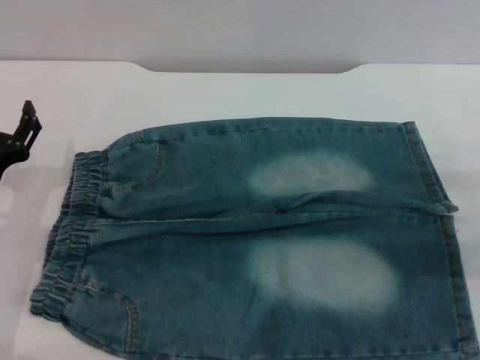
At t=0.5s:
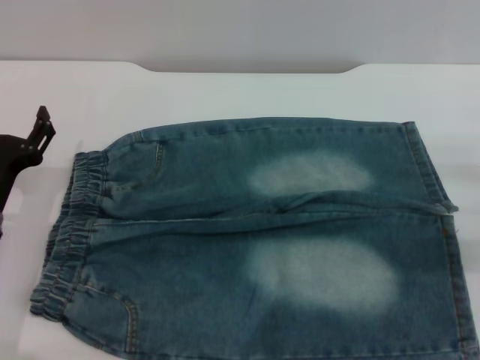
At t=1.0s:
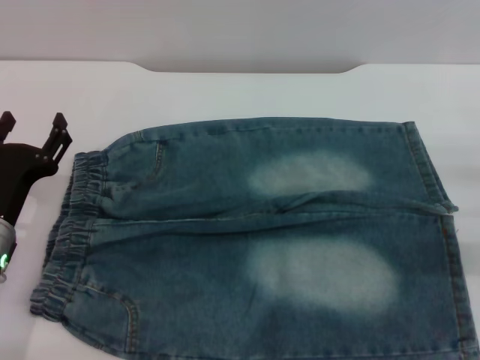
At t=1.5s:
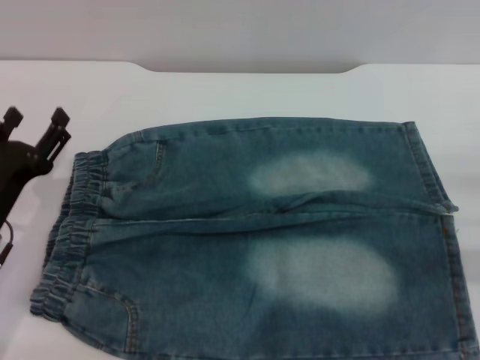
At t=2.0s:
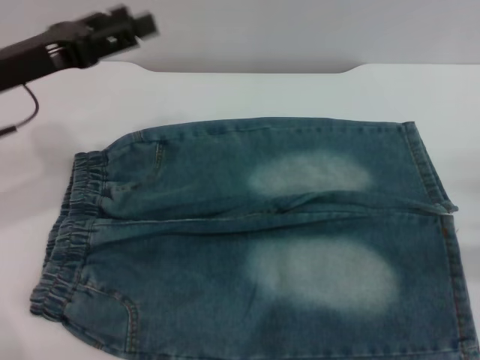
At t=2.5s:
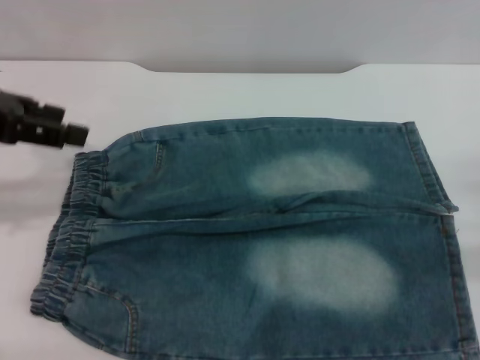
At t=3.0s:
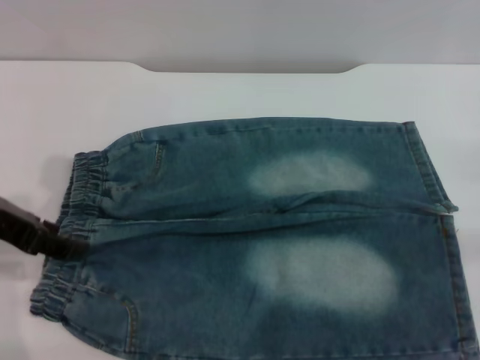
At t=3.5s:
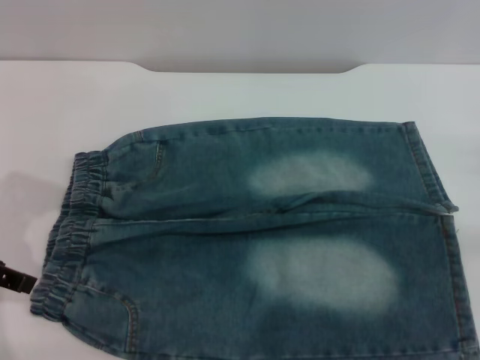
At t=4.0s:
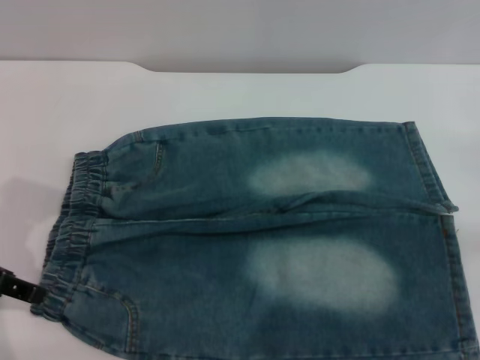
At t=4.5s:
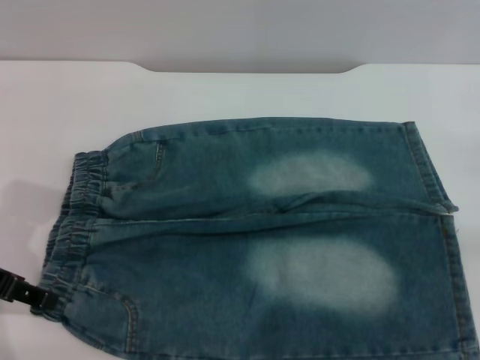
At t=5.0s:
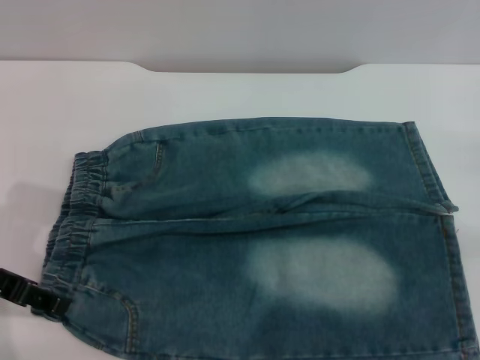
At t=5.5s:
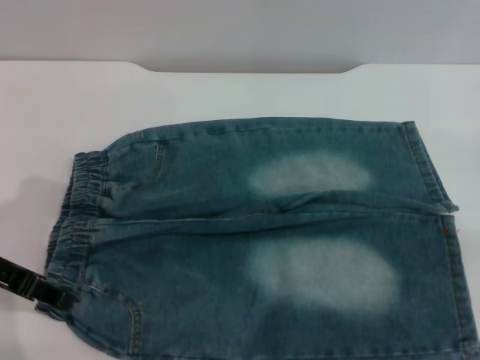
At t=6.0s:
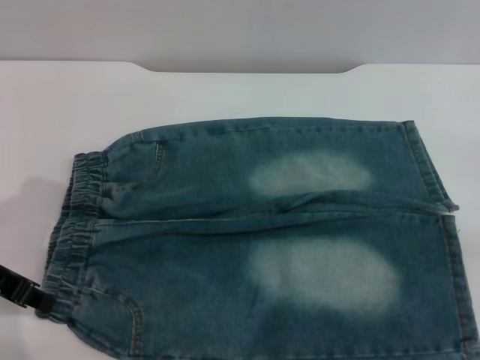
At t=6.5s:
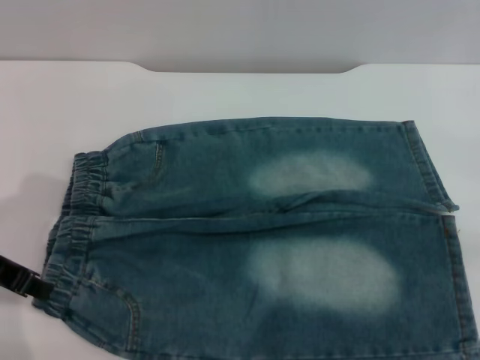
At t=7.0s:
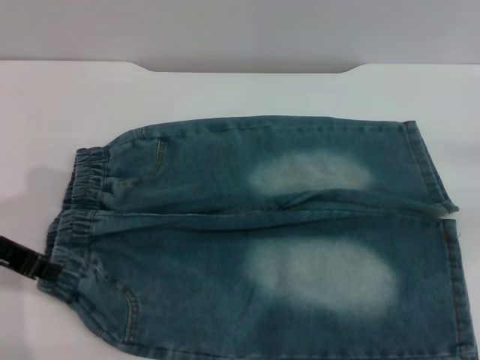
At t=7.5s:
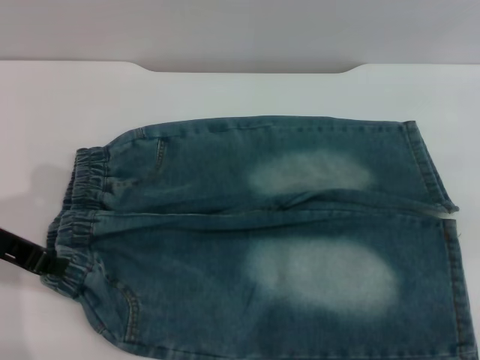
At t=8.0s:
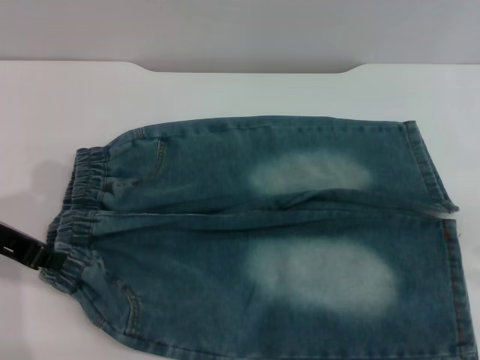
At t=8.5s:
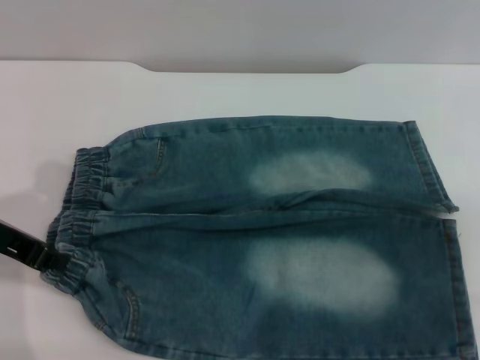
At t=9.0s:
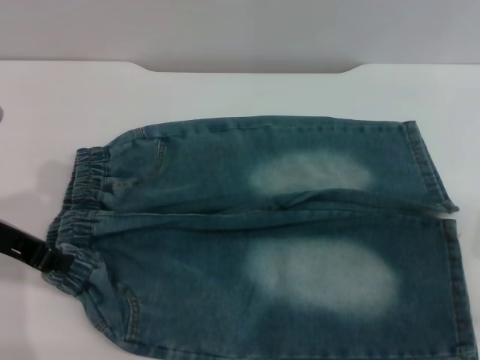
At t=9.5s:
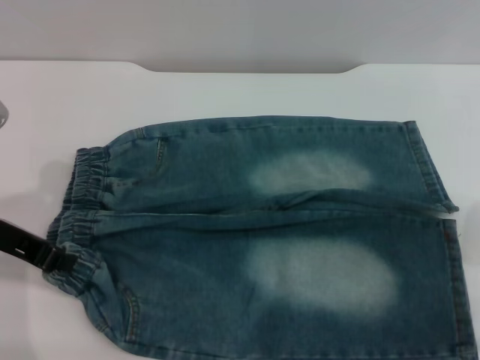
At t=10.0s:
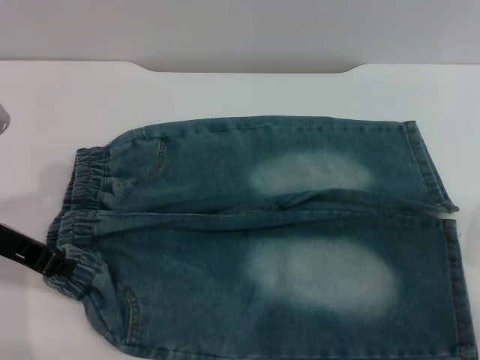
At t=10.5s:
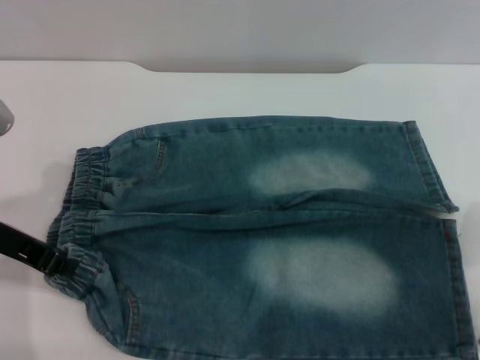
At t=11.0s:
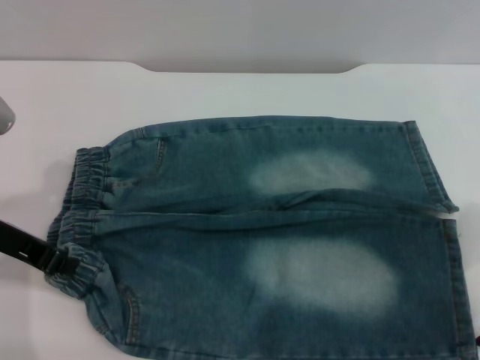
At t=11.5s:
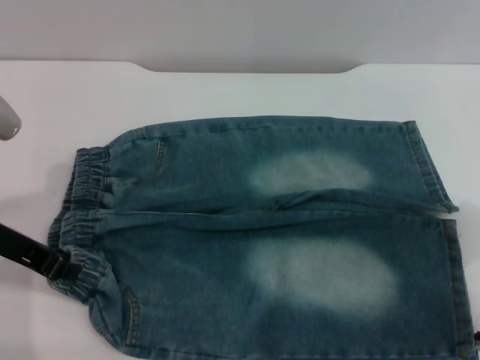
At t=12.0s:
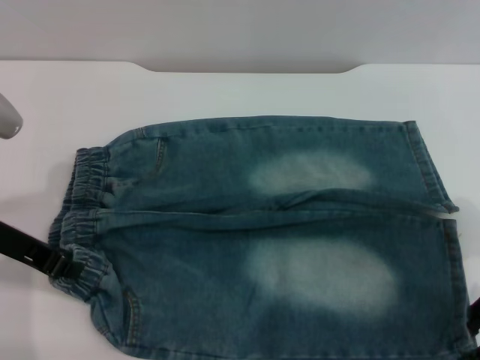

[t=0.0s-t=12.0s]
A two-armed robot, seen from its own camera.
t=0.0s to t=2.0s: The left gripper heads upward and forward, covering roughly 15 cm.
t=2.0s to t=4.0s: The left gripper travels backward by roughly 10 cm, and moves about 10 cm upward and comes back.
t=4.0s to t=6.0s: The grippers stay close to where they were, moving slightly.
t=6.0s to t=8.0s: The left gripper closes its fingers, while the right gripper heads upward and to the left, covering approximately 20 cm.
t=10.0s to t=12.0s: There are only small adjustments of the grippers.

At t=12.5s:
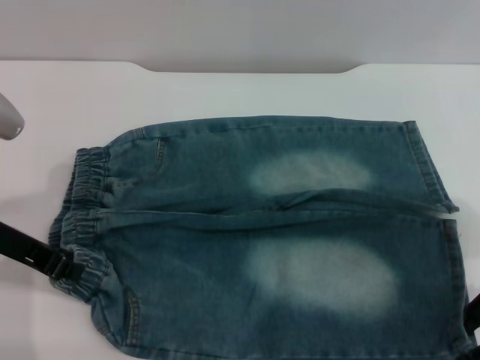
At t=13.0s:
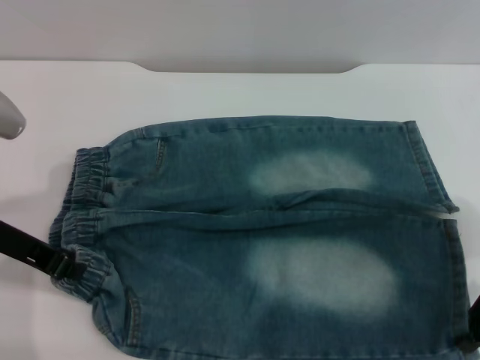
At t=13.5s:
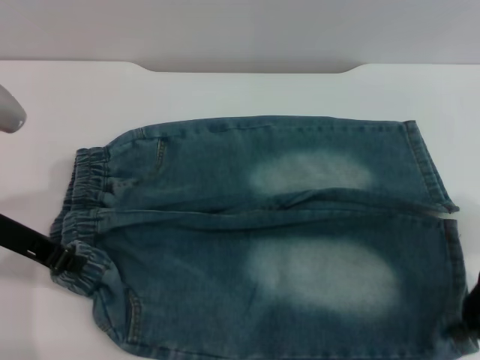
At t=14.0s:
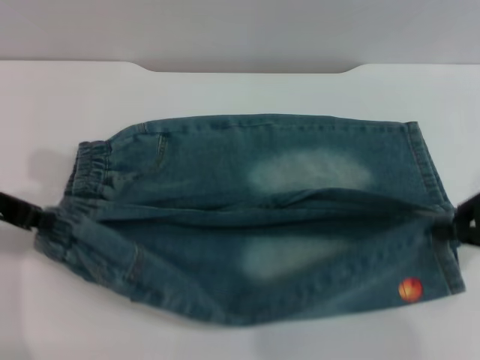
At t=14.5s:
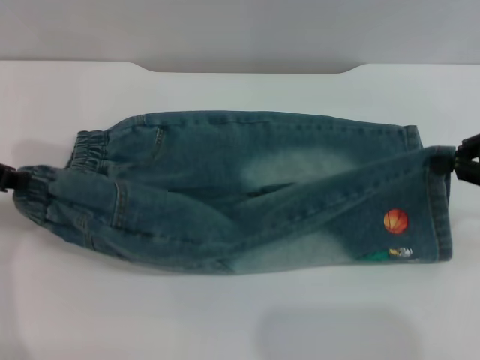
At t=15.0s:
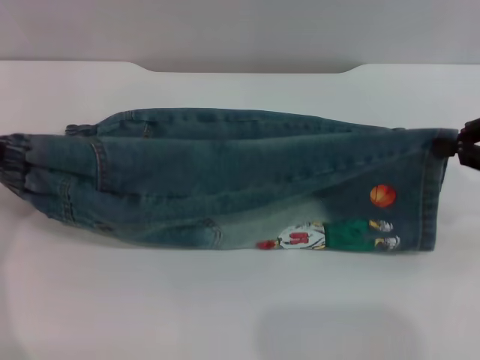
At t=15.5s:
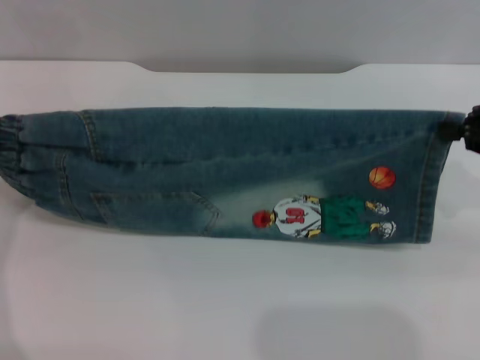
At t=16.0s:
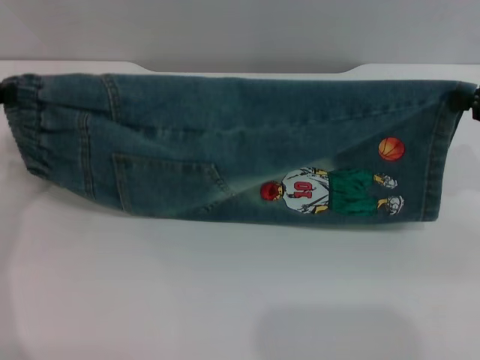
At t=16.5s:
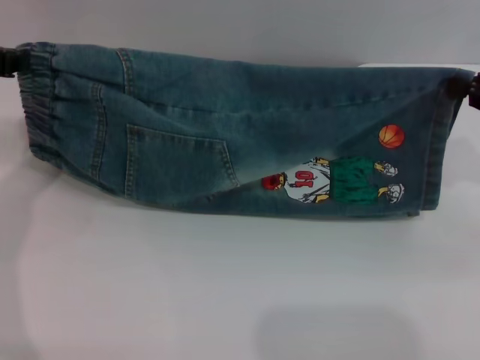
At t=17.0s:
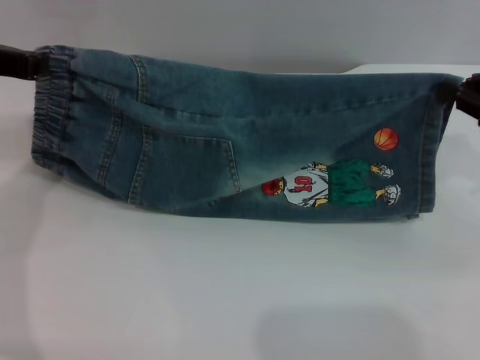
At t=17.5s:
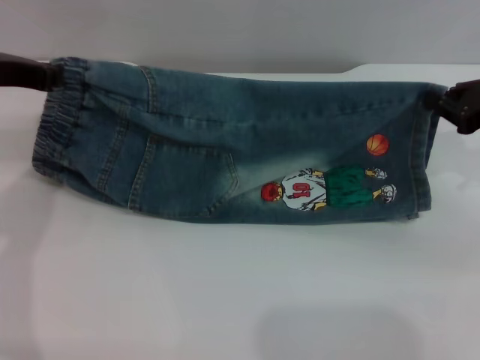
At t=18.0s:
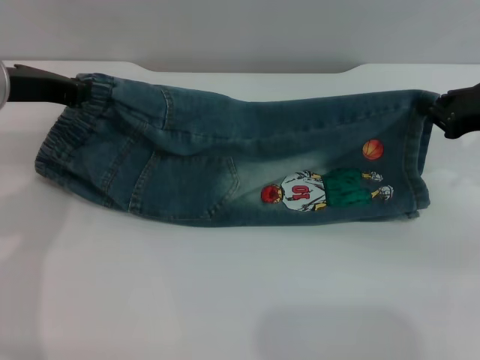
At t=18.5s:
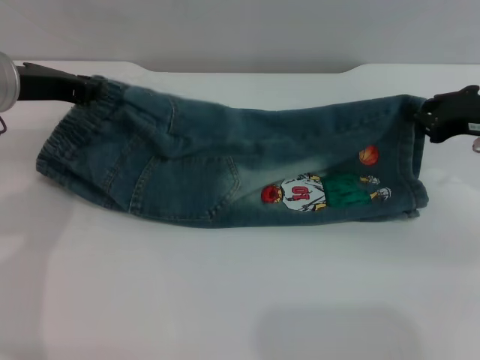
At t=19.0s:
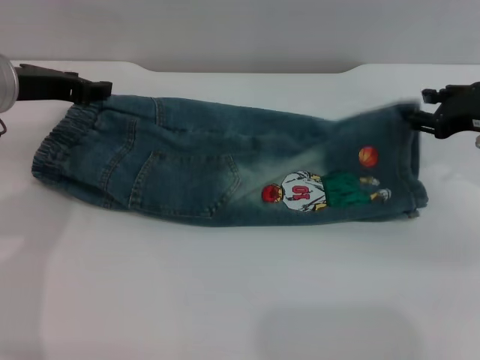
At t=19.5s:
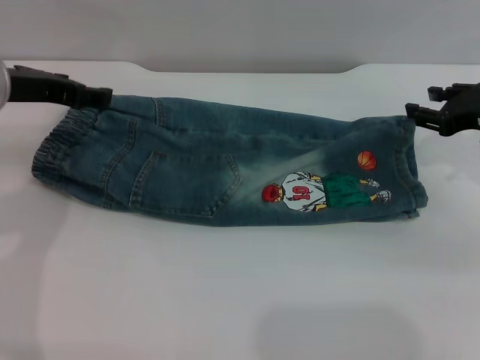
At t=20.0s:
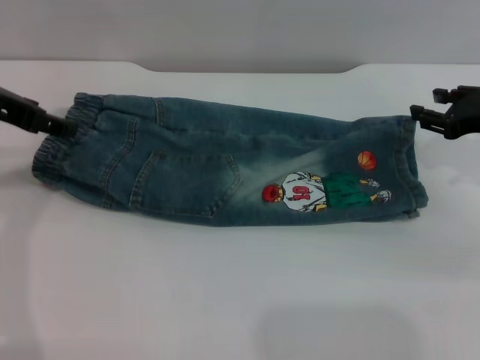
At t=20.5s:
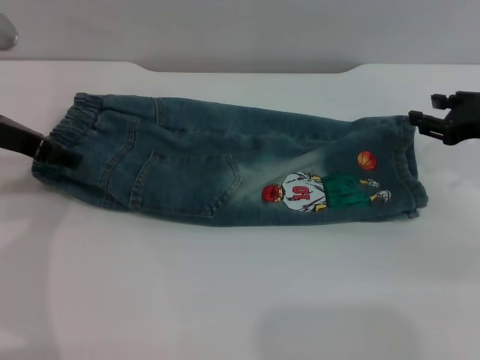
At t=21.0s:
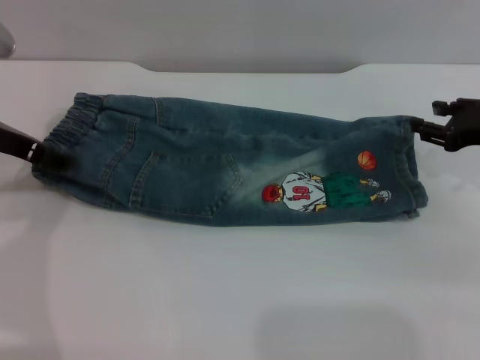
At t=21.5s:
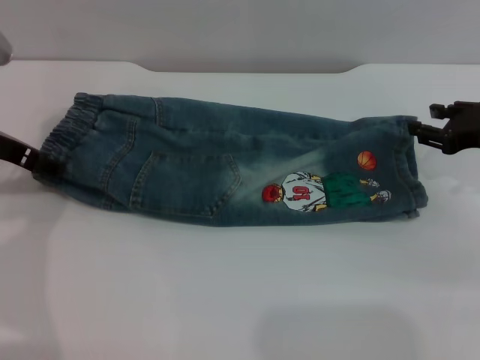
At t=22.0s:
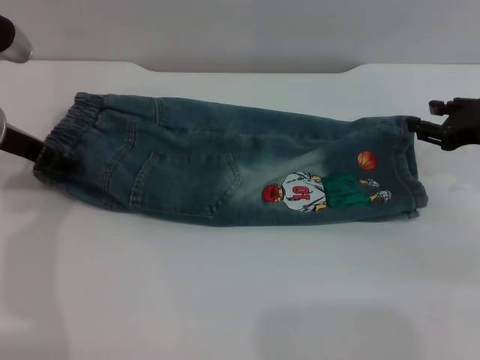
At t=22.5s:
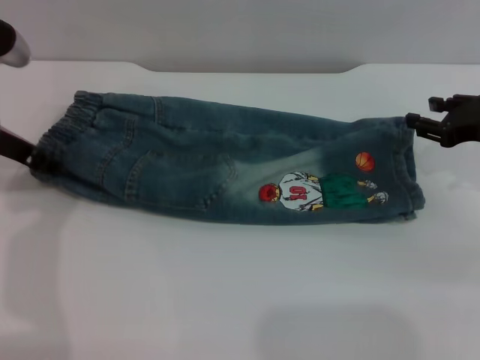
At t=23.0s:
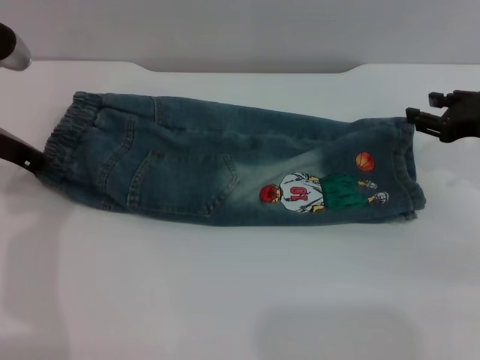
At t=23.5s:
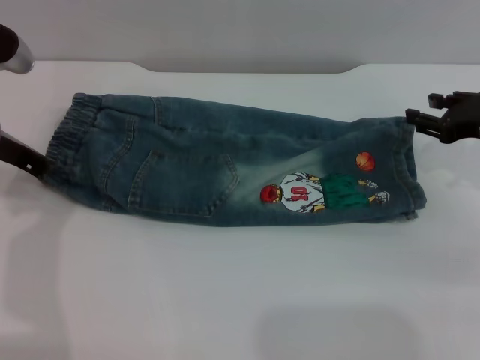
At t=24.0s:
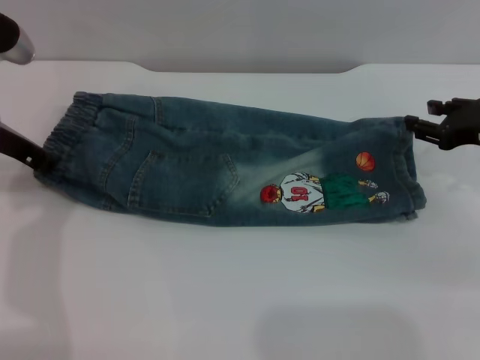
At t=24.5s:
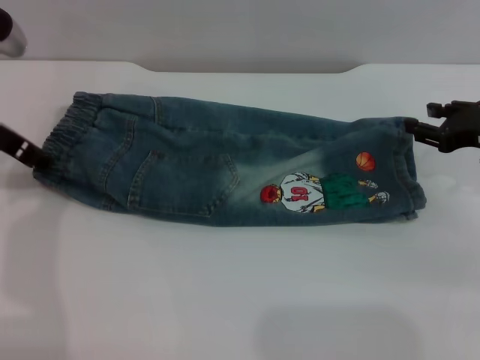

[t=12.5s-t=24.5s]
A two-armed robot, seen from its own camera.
Step, t=12.5s to t=19.5s: Fold the bottom of the pants upward with both grippers.
t=12.5s to t=14.5s: Both grippers move upward, about 5 cm. The right gripper closes.
t=16.5s to t=18.5s: The grippers both shift downward by about 5 cm.
t=18.5s to t=20.5s: The left gripper opens up; the right gripper opens its fingers.
t=20.5s to t=22.5s: The grippers move only a little.
t=22.5s to t=24.5s: The left gripper closes, then reopens.

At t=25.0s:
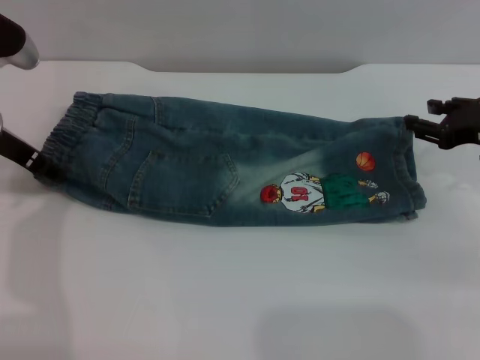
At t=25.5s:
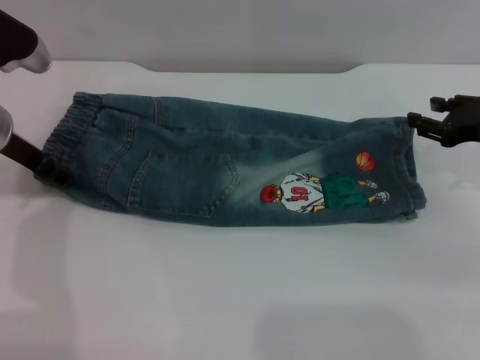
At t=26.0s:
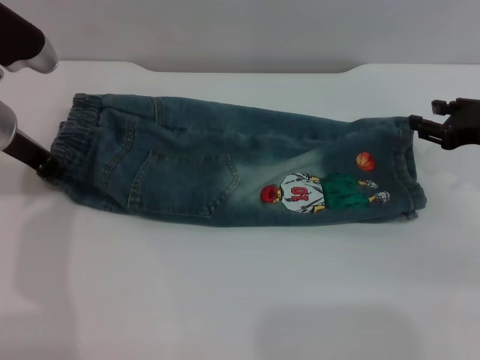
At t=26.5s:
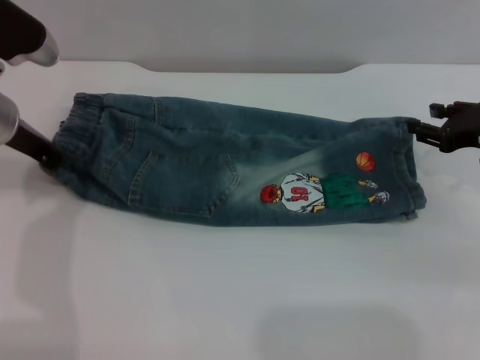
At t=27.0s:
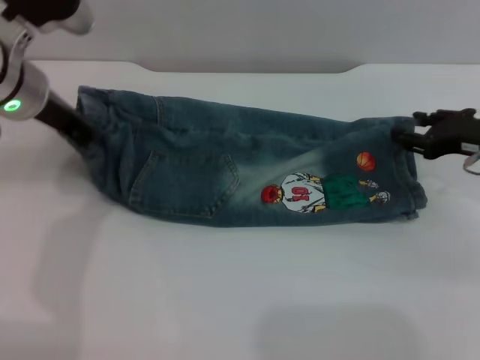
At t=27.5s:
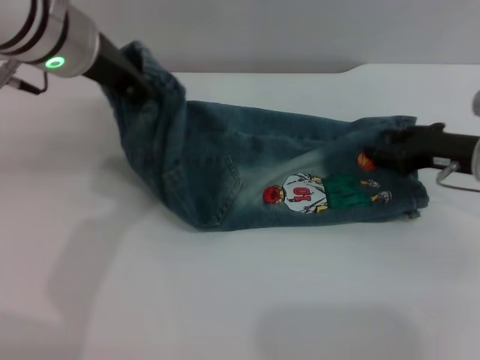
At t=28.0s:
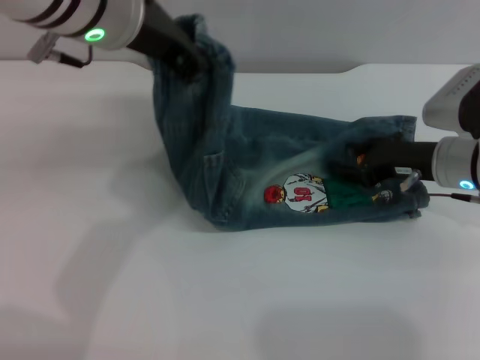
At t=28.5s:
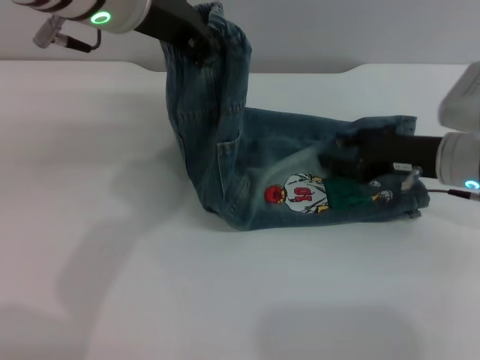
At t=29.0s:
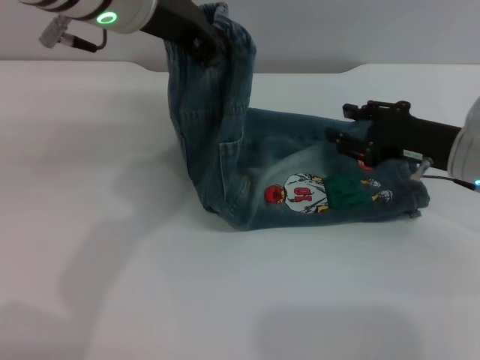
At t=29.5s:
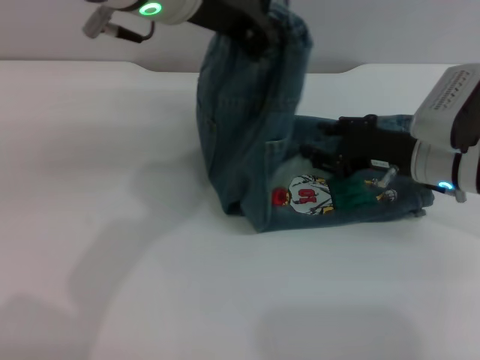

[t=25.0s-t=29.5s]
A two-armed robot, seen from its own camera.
t=25.0s to t=27.0s: The left gripper shifts approximately 5 cm to the right, and closes up.
t=27.0s to t=29.5s: The left gripper goes roughly 15 cm to the right and upward. Meanwhile the right gripper travels to the left by roughly 10 cm.
